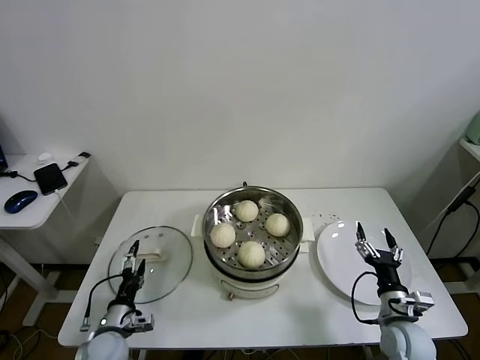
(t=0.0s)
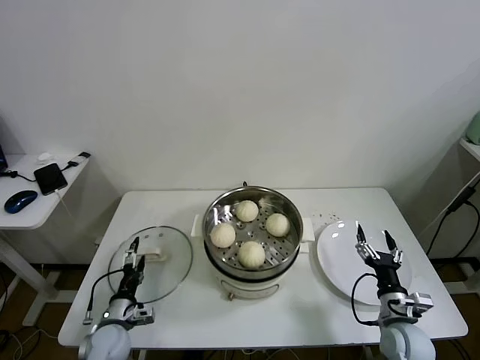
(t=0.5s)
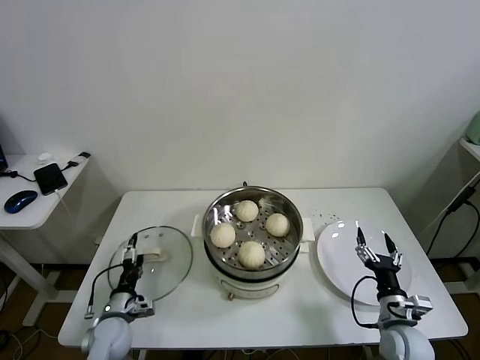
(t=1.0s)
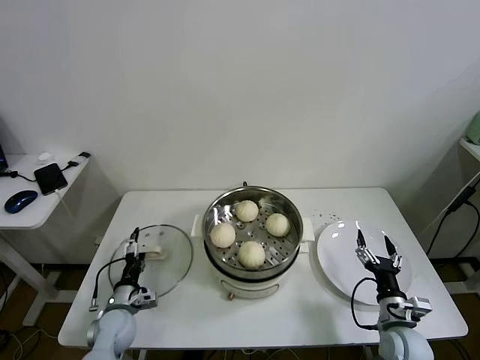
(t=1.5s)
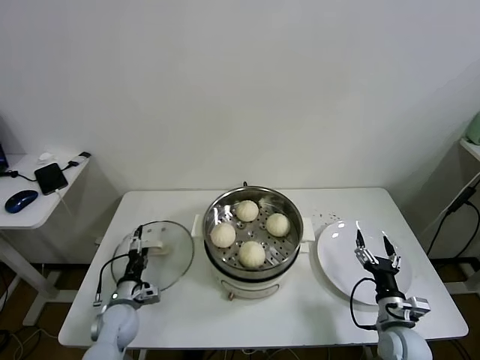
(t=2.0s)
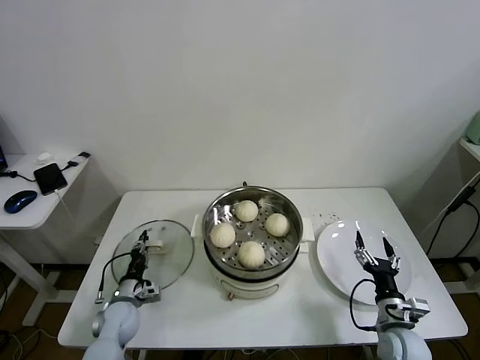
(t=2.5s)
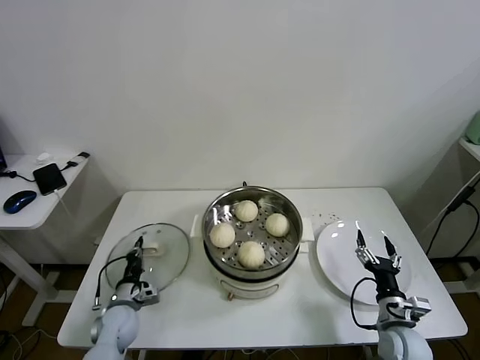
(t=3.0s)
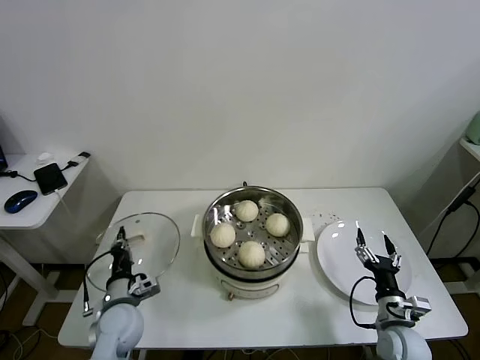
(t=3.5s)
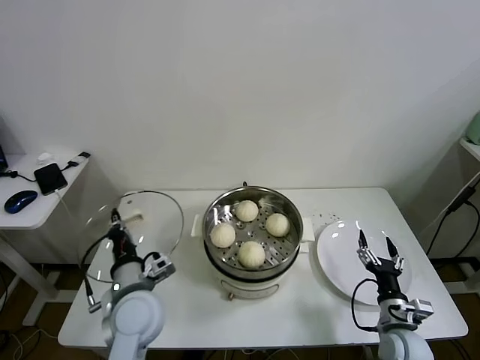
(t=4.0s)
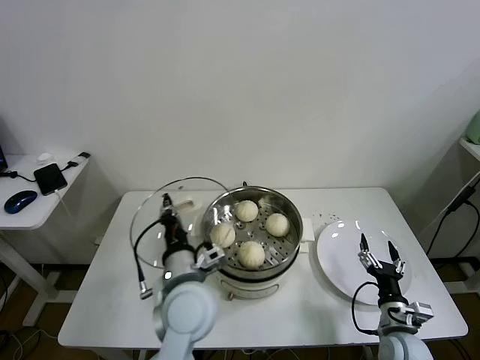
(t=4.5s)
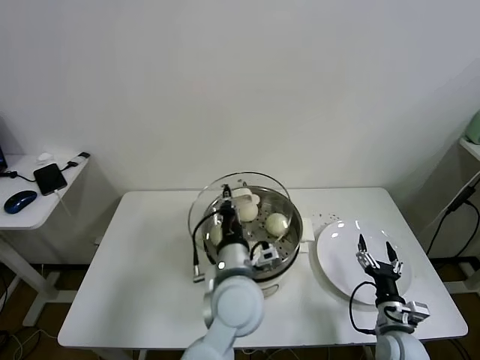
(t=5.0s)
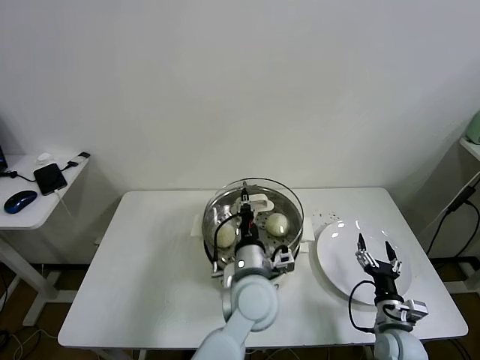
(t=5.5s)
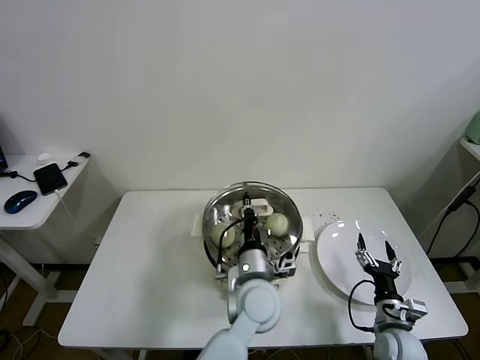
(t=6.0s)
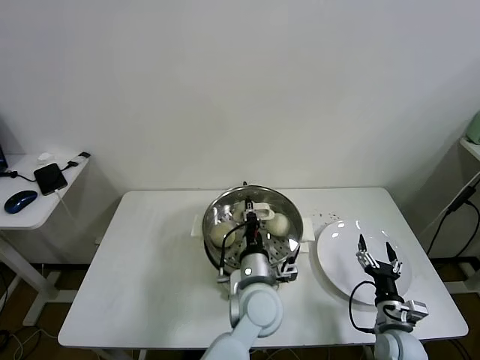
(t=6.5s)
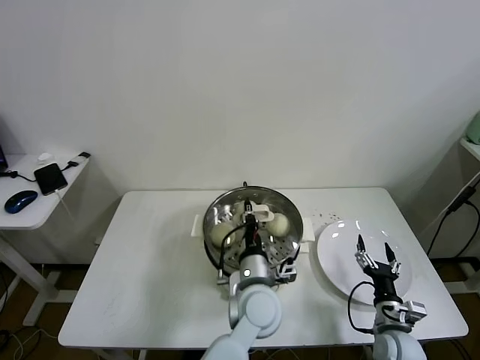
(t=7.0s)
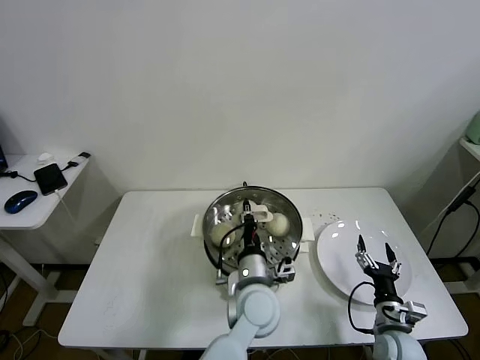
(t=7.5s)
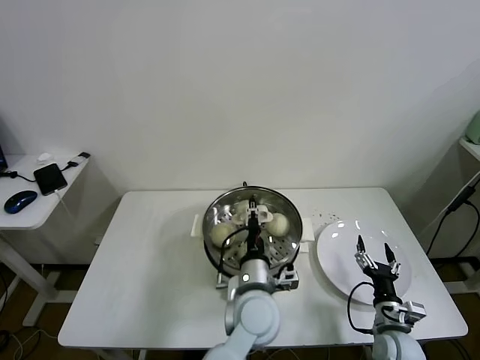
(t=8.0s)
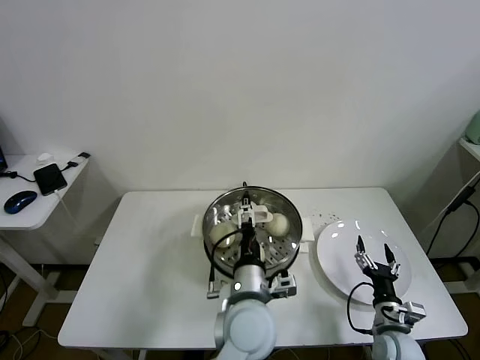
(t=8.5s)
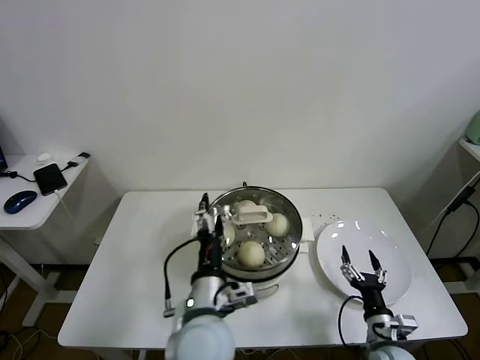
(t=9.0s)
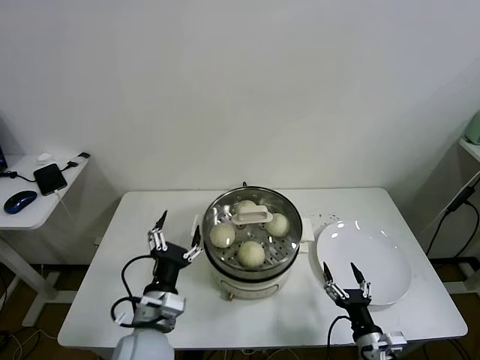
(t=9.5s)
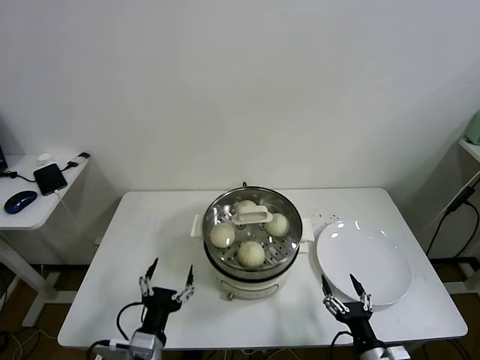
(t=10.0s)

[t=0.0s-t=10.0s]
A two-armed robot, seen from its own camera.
Task of the whole recording: take steamed baozi put them in steamer.
Step, t=0.0s to t=2.5s: Grasp the pot lid with left gripper.
Step, t=3.0s to t=8.0s: Place the pot lid on the steamer with left gripper.
t=0.0s to t=2.0s: The left gripper heads forward, covering some 5 cm.
t=2.0s to t=4.0s: The left gripper shifts roughly 20 cm upward and to the right, and closes.
t=4.0s to t=6.0s: The left gripper travels to the right by roughly 25 cm.
t=6.0s to t=8.0s: The left gripper opens its fingers.
t=8.0s to t=10.0s: The right gripper goes roughly 10 cm backward, while the left gripper travels to the left and backward by approximately 25 cm, and opens up.
